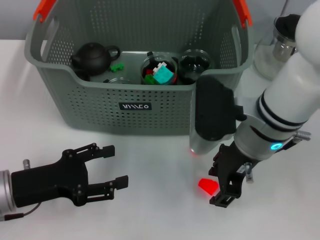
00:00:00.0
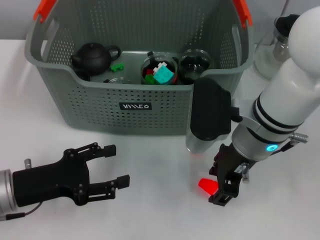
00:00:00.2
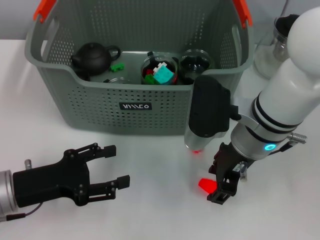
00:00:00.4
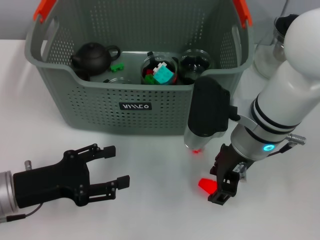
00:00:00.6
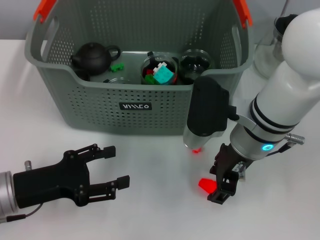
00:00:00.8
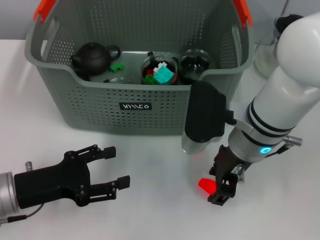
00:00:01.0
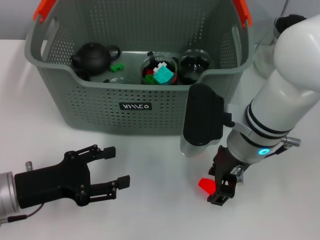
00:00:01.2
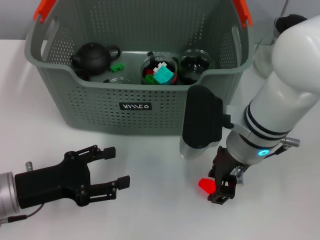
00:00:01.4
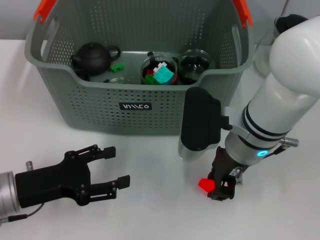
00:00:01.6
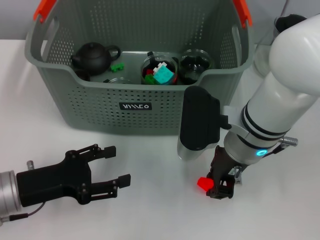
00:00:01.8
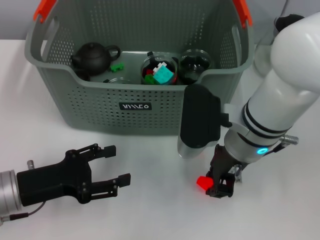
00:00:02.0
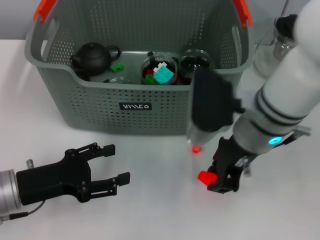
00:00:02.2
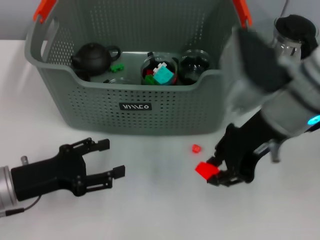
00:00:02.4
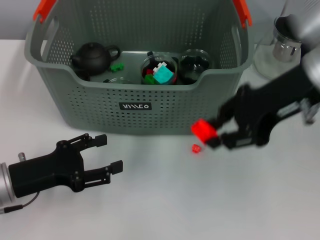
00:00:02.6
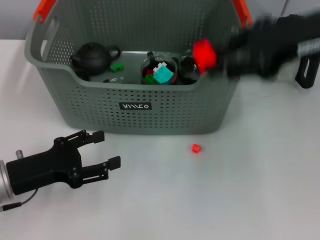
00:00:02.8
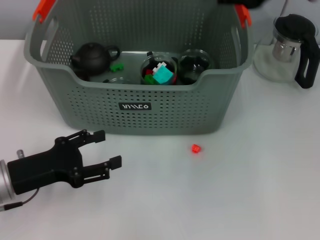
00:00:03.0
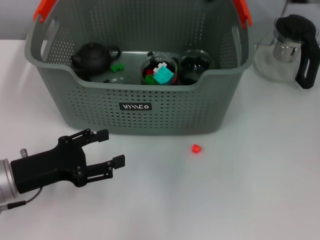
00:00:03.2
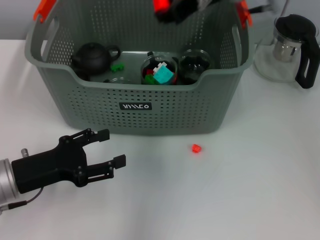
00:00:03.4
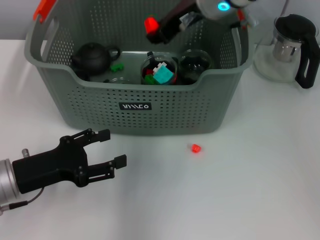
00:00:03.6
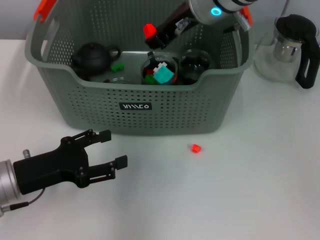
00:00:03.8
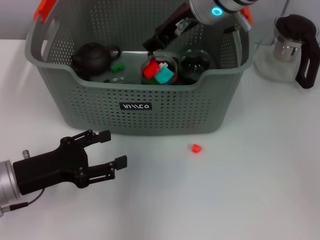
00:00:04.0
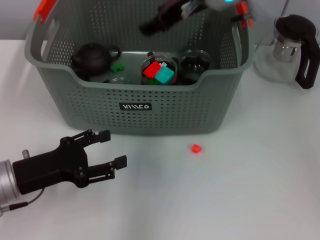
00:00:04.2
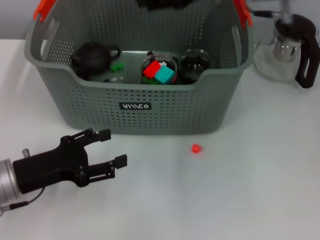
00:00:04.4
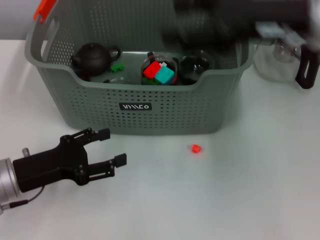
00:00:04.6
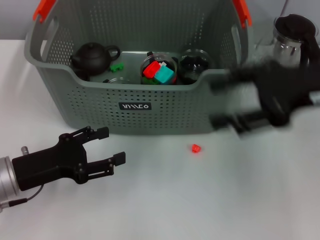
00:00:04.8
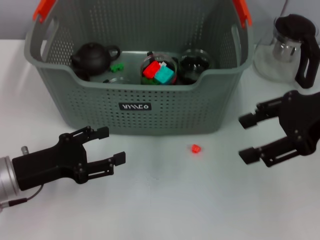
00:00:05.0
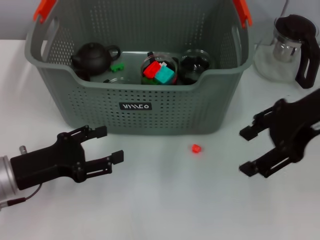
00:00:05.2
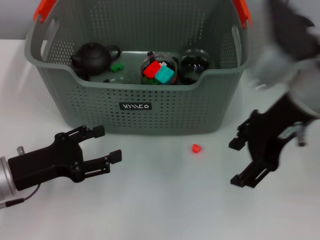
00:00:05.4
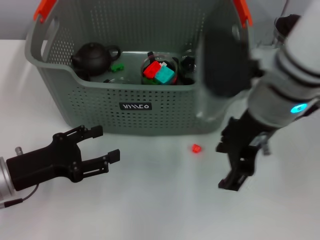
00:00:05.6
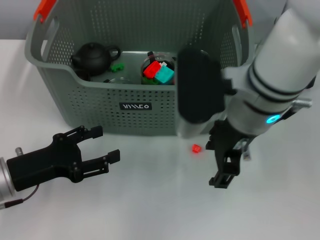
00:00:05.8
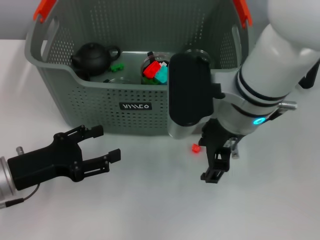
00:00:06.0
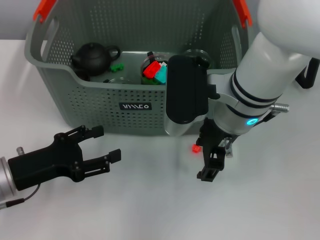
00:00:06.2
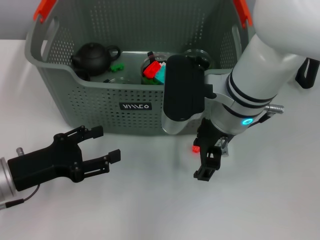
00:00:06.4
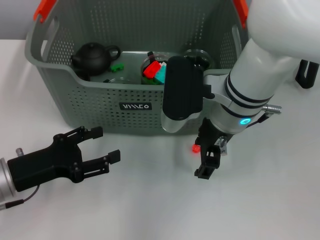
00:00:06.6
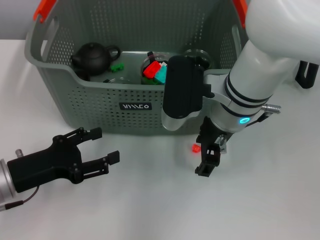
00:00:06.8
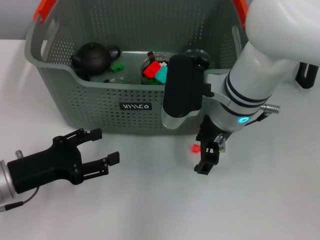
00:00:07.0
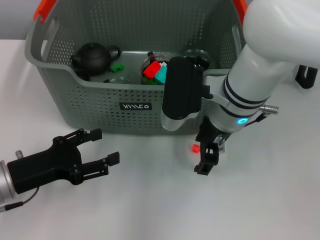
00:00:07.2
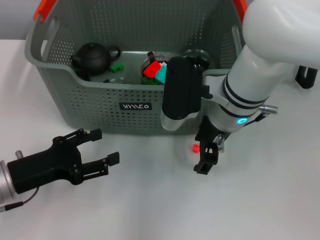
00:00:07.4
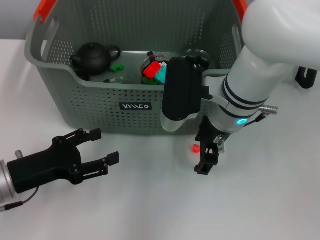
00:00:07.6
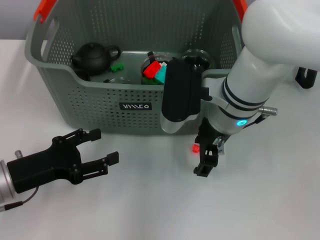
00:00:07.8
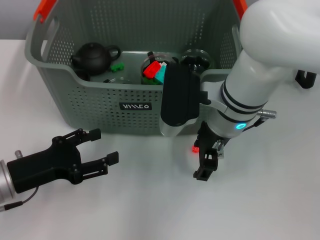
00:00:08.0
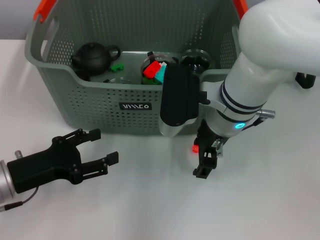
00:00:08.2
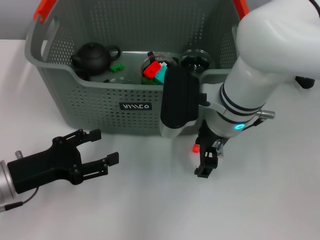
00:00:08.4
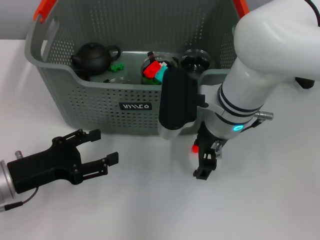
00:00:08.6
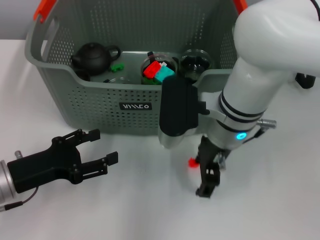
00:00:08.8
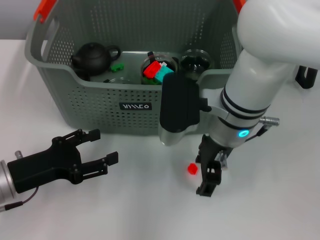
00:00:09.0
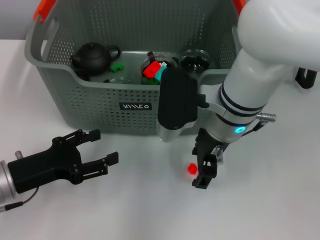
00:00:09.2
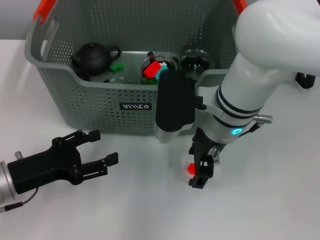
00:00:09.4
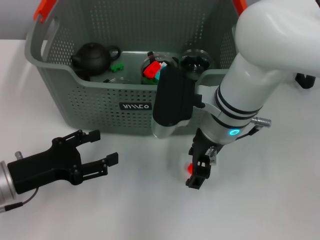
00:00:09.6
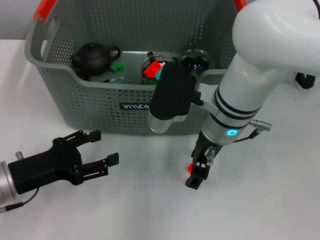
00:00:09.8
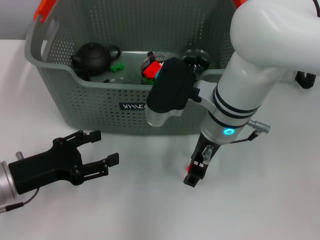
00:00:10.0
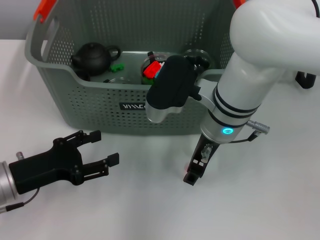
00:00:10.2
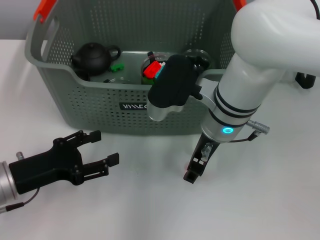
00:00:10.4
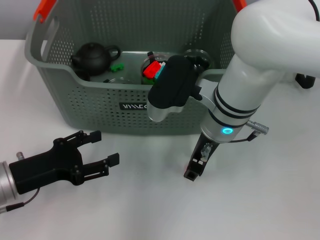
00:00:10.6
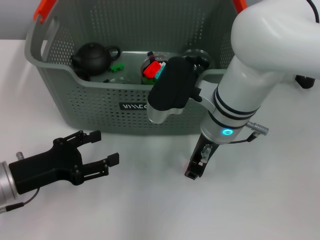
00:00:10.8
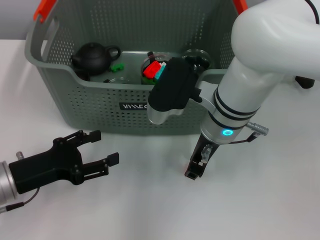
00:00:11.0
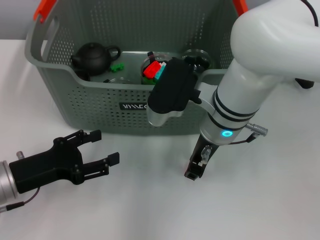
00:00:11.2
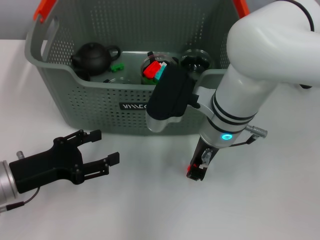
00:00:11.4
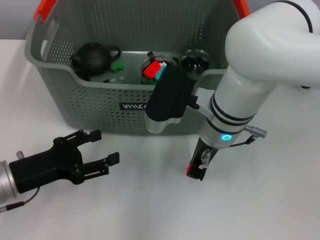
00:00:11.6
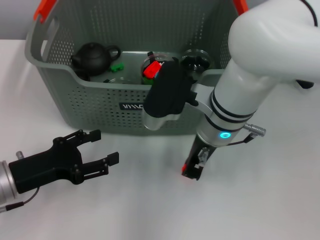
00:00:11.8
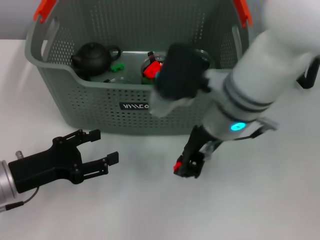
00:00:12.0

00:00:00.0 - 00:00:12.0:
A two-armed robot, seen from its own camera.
Task of the whole recording: pick up the teacup on the table and place it into the storage bin, pick up the block on the table and place it into the storage bin.
Step, 00:00:00.0 - 00:00:01.8: Grasp the orange block with right gripper.
Step, 00:00:02.0 - 00:00:04.0: Place the orange block in the storage box with right gripper.
Step, 00:00:04.2 - 00:00:11.4: Grasp the orange block with right gripper.
00:00:00.0 - 00:00:01.6: The grippers make only small movements.
00:00:01.6 - 00:00:03.0: The right gripper shifts about 20 cm upward and to the right.
00:00:03.0 - 00:00:04.4: The right gripper moves to the left, roughly 5 cm, and opens up.
00:00:04.4 - 00:00:06.0: The right gripper heads downward and backward, covering roughly 10 cm, and reaches about 10 cm to the right, then returns.
00:00:06.0 - 00:00:07.6: The right gripper shifts by roughly 5 cm.
00:00:07.6 - 00:00:10.4: The grippers move only a little.
00:00:10.4 - 00:00:12.0: The right gripper closes.

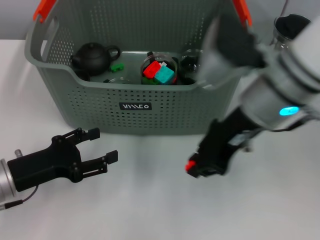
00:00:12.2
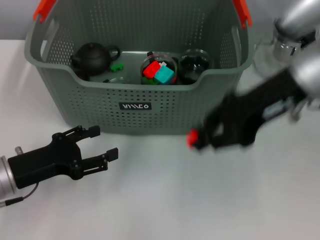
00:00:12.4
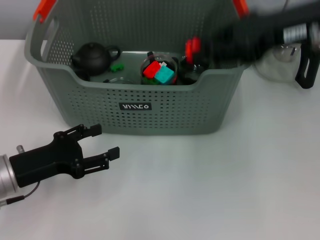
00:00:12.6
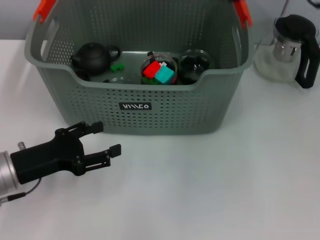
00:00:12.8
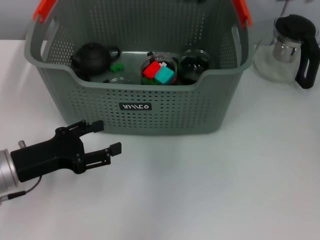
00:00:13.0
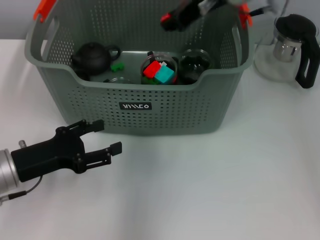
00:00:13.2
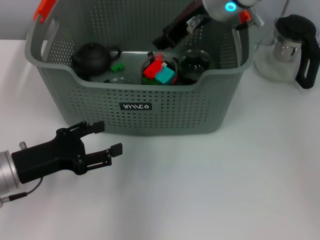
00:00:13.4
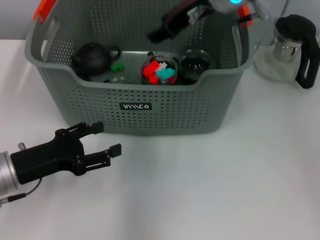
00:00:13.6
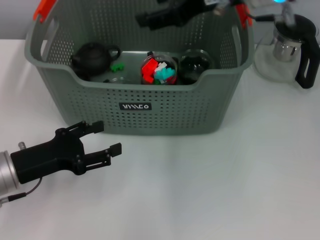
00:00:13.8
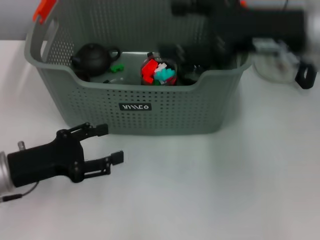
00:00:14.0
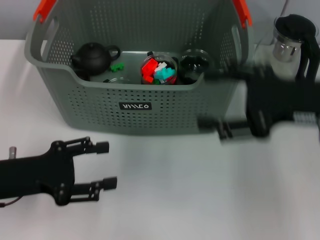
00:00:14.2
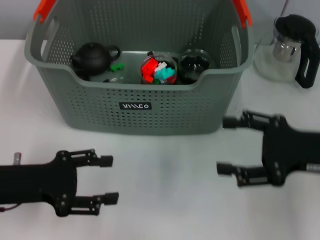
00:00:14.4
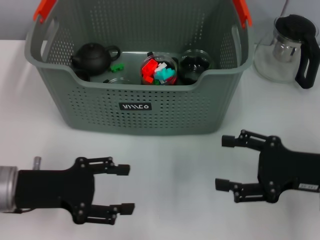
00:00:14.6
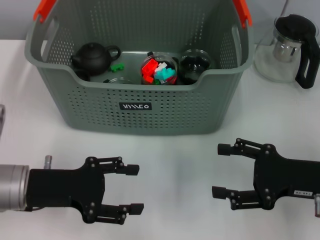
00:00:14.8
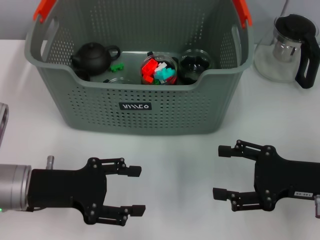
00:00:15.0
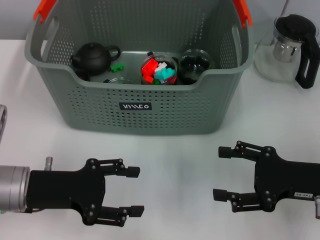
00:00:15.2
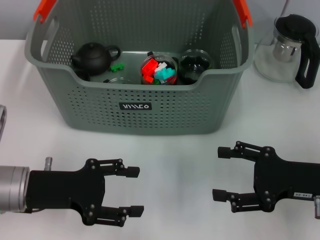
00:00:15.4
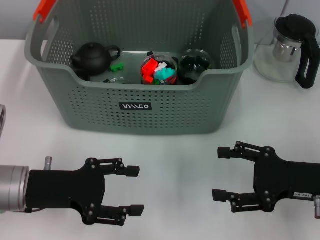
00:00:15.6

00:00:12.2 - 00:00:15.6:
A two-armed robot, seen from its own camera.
Task of the whole recording: pick up the teacup on the table and place it into the storage bin, pick up the block on the table and place it into the storage bin.
Step, 00:00:12.2 - 00:00:13.4: Place the orange block in the storage box with right gripper.
00:00:12.2 - 00:00:13.8: The right gripper goes left and right, about 10 cm each way, reversing 2 times, and opens up.
00:00:13.8 - 00:00:15.6: The right gripper shifts roughly 25 cm downward, backward and to the right.
